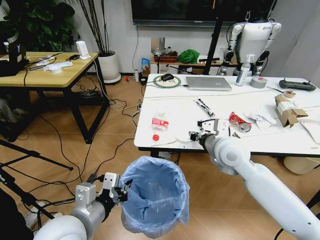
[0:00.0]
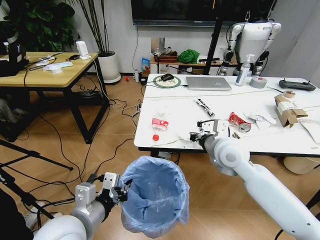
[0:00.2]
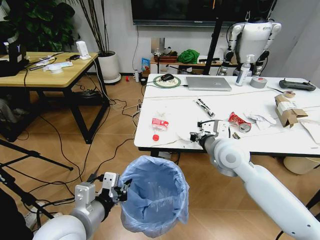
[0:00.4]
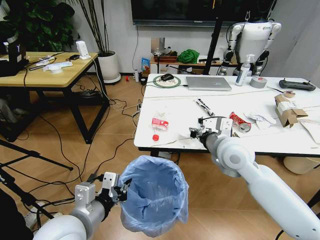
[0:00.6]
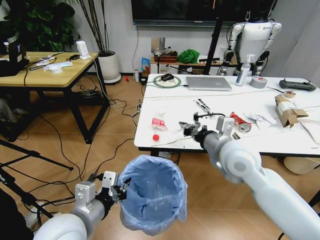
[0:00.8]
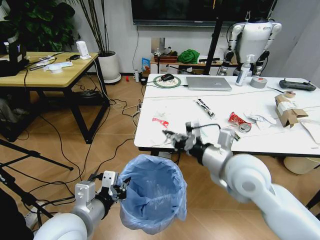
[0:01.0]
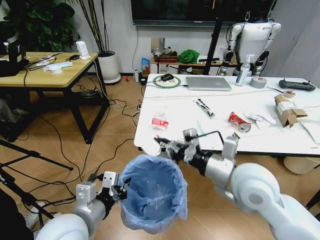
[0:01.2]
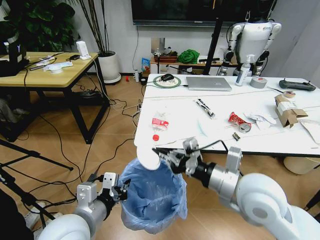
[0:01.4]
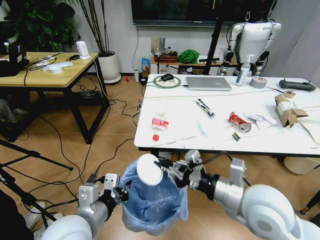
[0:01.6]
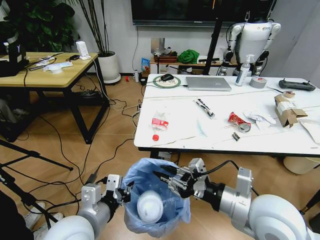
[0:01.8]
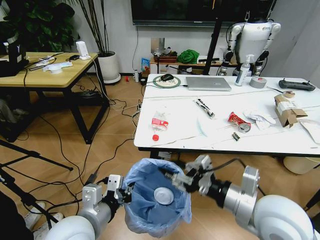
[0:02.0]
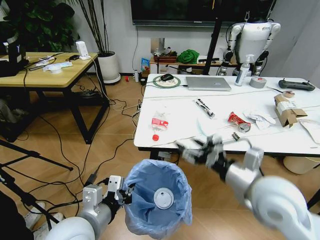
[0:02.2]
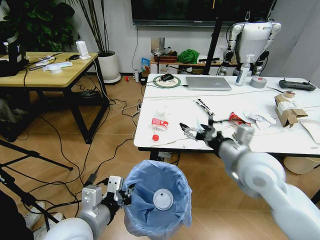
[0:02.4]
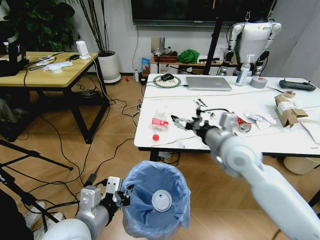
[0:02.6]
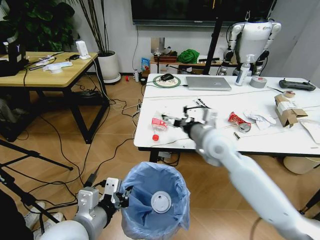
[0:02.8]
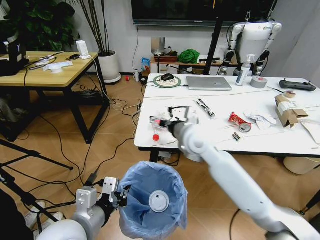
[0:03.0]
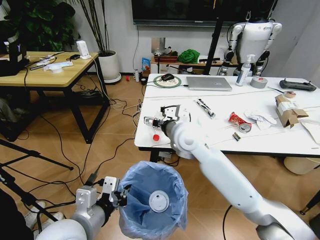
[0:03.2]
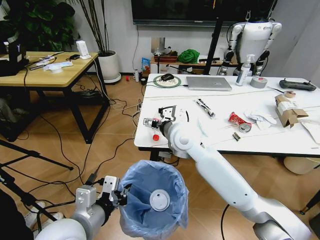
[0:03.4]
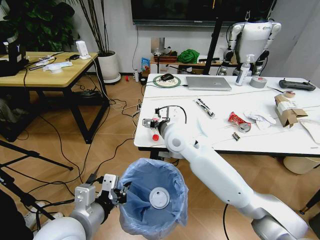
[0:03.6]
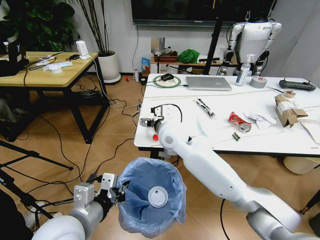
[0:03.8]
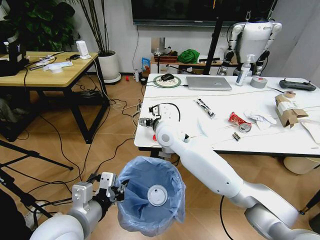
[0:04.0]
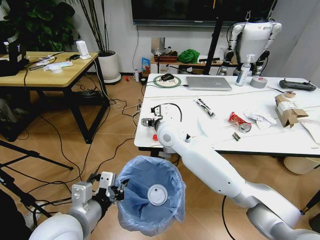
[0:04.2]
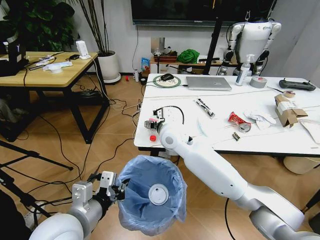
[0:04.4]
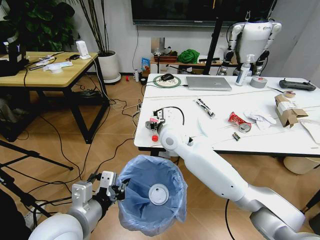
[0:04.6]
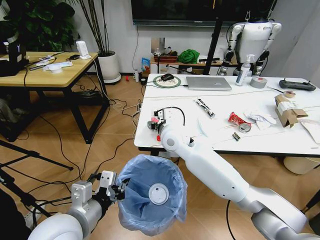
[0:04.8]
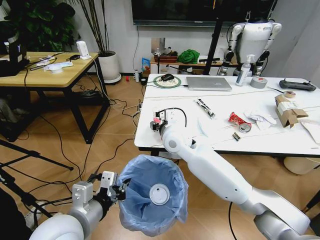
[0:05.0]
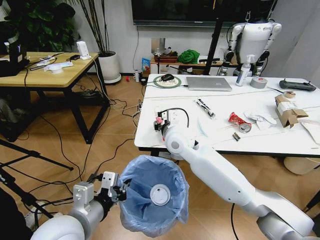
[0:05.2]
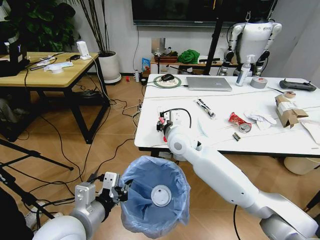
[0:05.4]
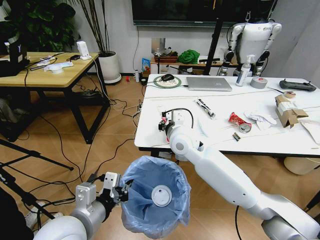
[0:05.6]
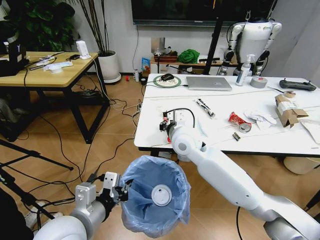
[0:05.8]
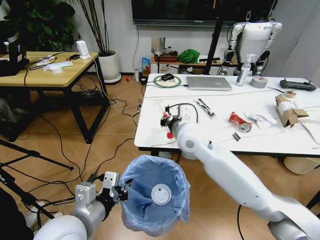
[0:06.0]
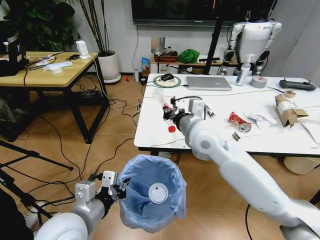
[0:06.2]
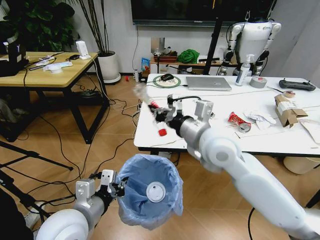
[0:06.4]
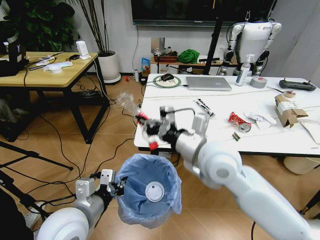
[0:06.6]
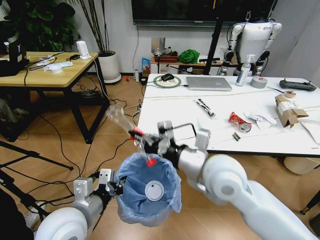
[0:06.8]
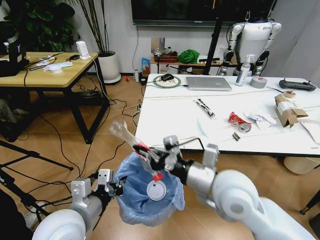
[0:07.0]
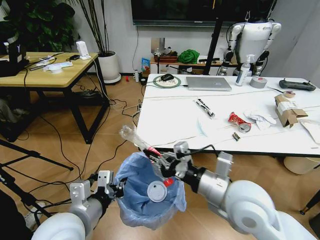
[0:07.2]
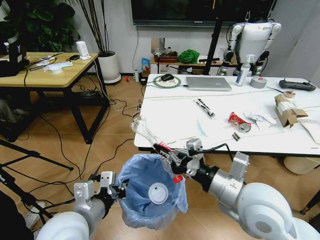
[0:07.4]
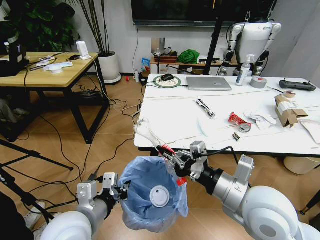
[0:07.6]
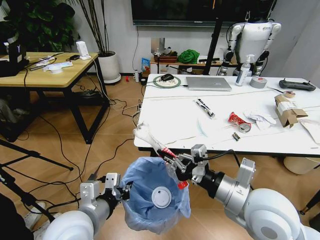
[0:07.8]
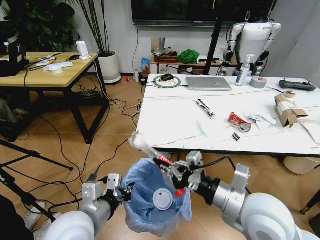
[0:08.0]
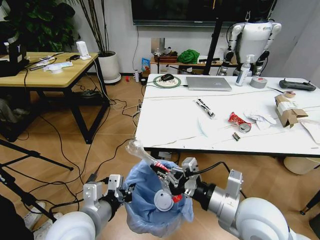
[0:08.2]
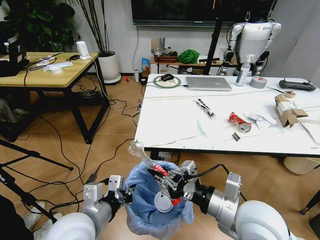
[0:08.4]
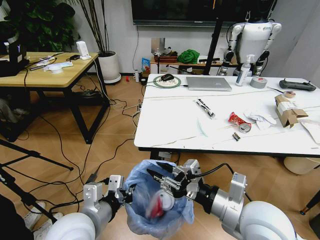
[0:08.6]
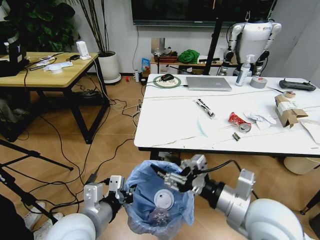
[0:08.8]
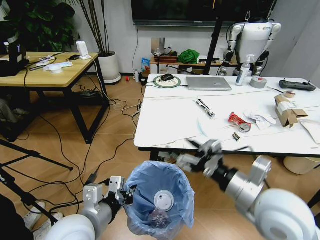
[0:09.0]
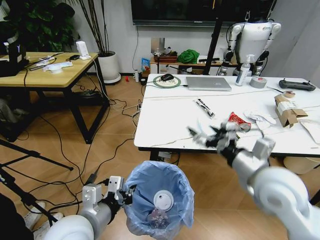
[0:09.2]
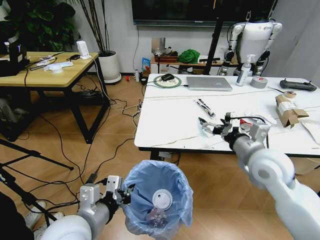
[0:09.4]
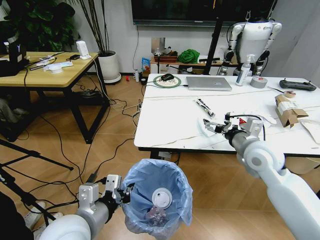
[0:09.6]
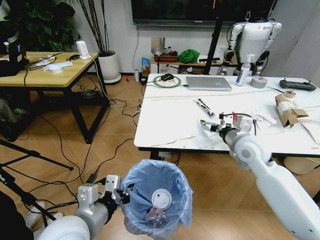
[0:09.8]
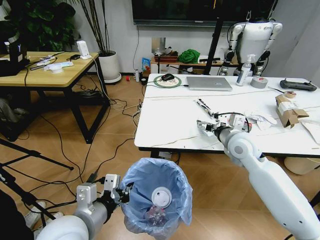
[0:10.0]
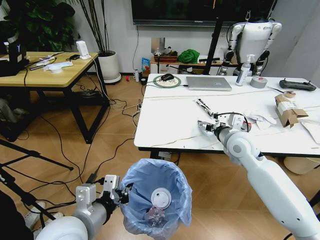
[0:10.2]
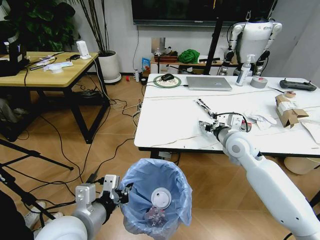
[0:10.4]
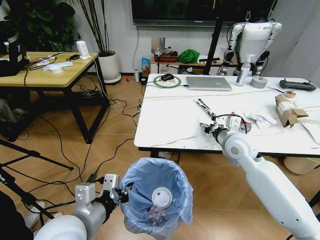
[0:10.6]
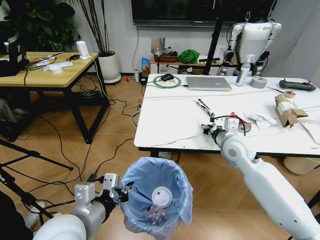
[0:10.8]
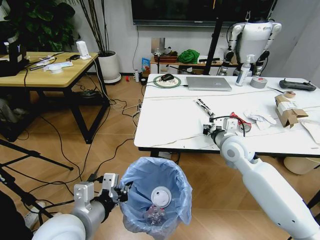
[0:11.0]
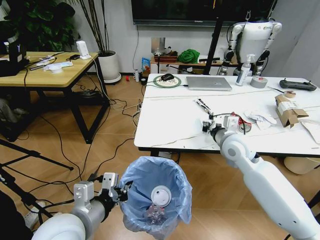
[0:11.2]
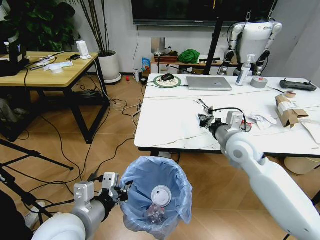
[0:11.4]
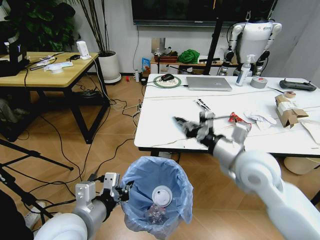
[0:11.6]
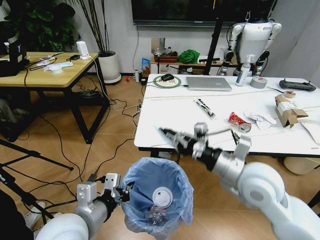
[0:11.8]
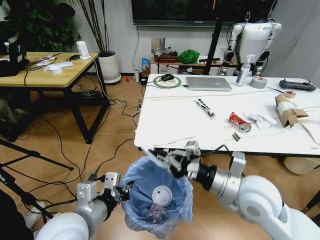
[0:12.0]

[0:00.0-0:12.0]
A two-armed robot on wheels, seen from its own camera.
Task of the whole recording: Pick up the trash bin and place the trash from the table into it.
0:00.0 to 0:01.6: The right gripper goes roughly 15 cm backward.
0:01.6 to 0:03.0: The right gripper is displaced forward and to the left by roughly 20 cm, and opens its fingers.
0:03.0 to 0:04.4: The right gripper is displaced to the left by about 5 cm.
0:04.4 to 0:06.0: The right gripper moves roughly 5 cm, and closes up.
0:06.0 to 0:07.6: The right gripper travels backward and to the right by about 25 cm.
0:07.6 to 0:09.0: The right gripper opens its fingers.
0:09.0 to 0:10.4: The right gripper moves forward, roughly 20 cm.
0:10.4 to 0:12.0: The right gripper goes roughly 15 cm backward, and closes its fingers.

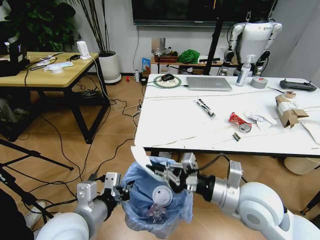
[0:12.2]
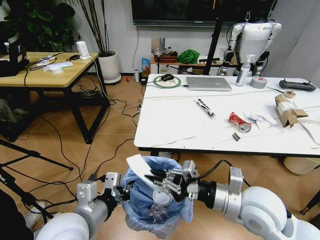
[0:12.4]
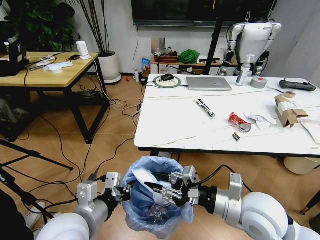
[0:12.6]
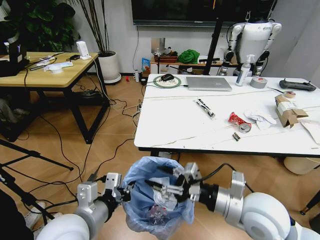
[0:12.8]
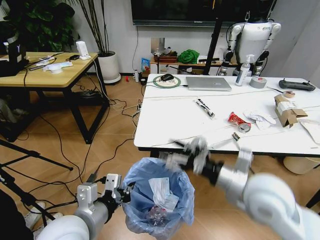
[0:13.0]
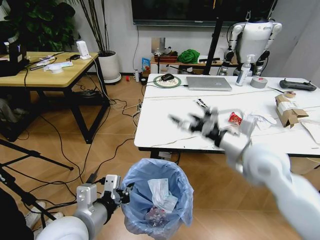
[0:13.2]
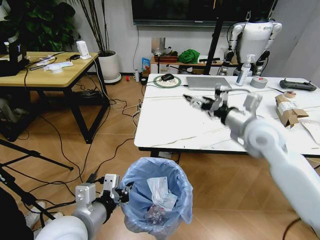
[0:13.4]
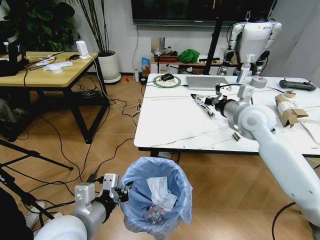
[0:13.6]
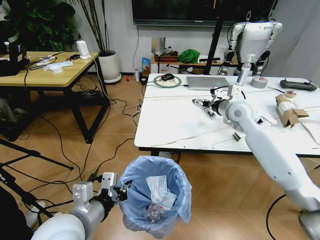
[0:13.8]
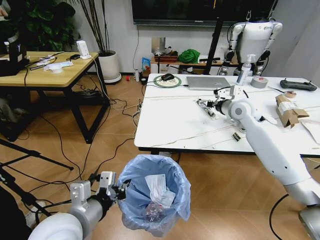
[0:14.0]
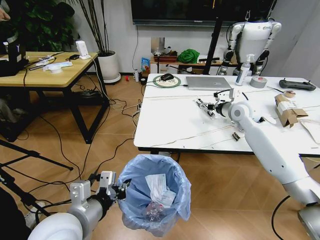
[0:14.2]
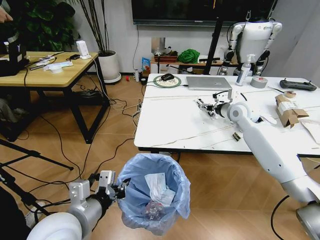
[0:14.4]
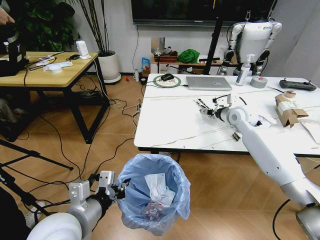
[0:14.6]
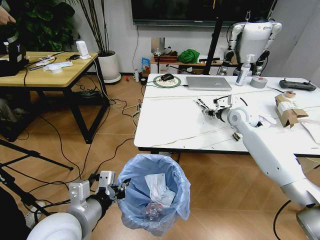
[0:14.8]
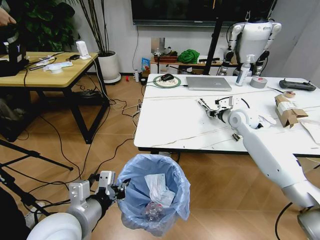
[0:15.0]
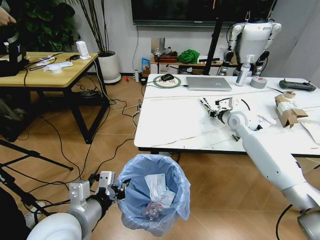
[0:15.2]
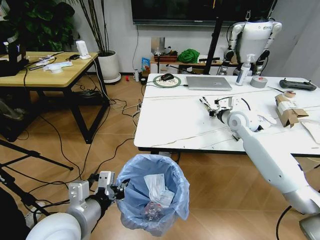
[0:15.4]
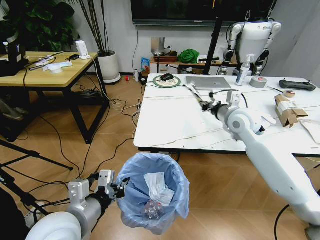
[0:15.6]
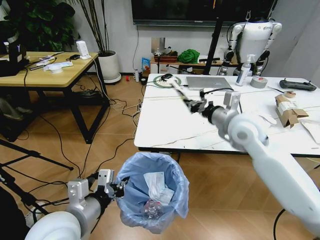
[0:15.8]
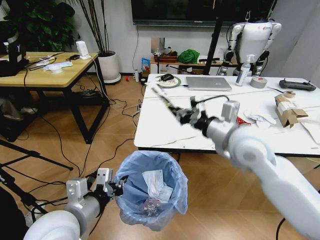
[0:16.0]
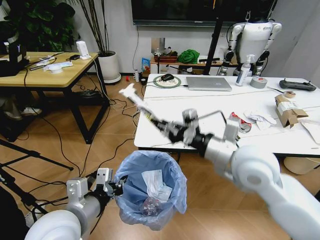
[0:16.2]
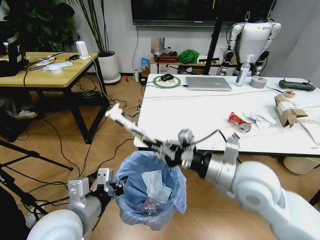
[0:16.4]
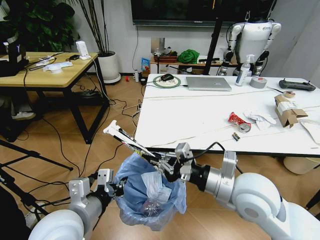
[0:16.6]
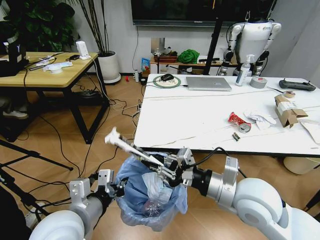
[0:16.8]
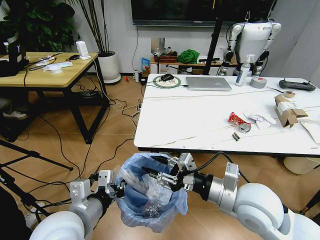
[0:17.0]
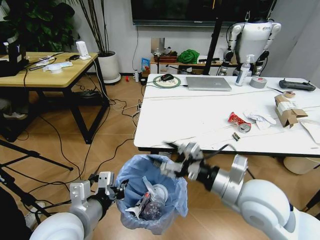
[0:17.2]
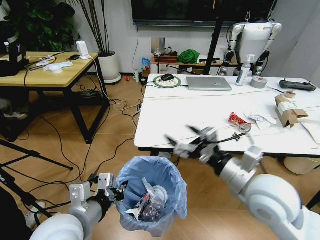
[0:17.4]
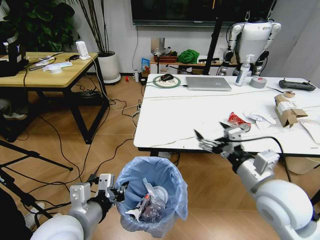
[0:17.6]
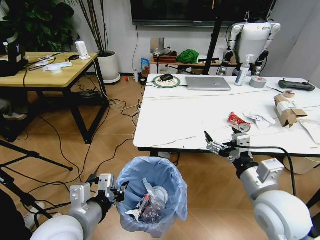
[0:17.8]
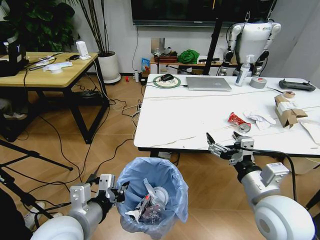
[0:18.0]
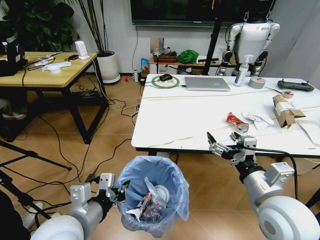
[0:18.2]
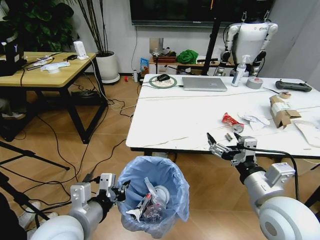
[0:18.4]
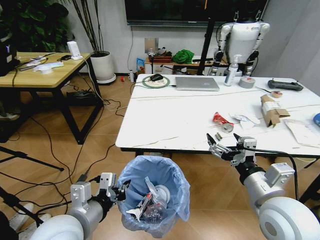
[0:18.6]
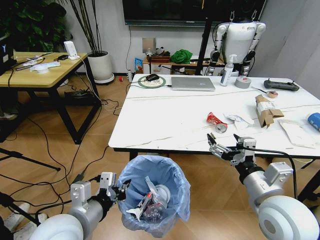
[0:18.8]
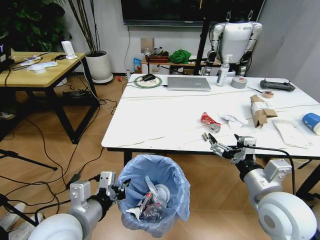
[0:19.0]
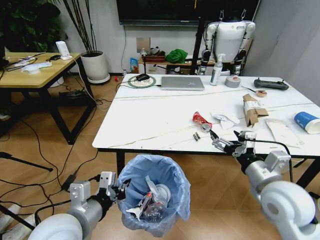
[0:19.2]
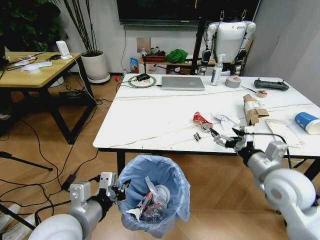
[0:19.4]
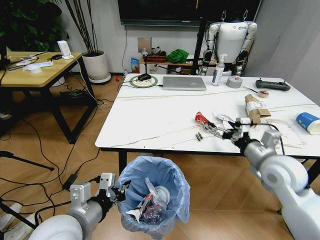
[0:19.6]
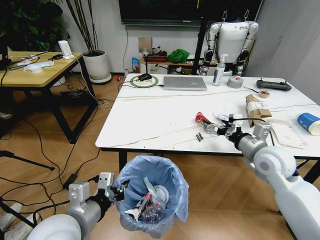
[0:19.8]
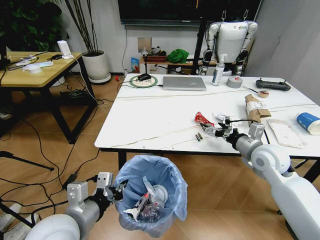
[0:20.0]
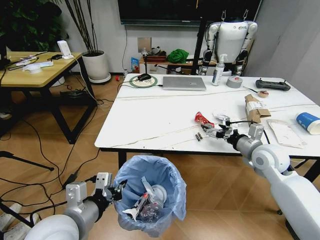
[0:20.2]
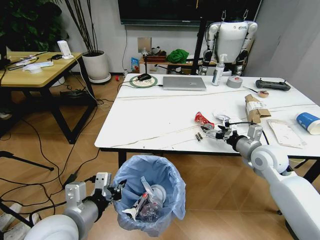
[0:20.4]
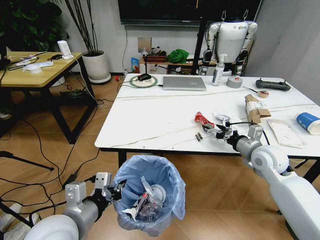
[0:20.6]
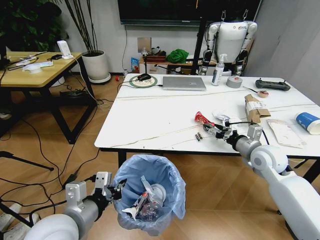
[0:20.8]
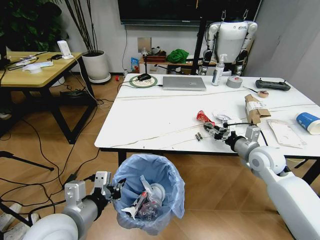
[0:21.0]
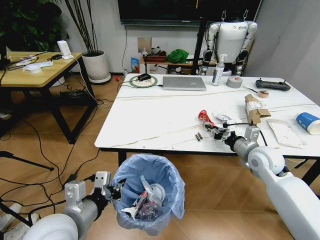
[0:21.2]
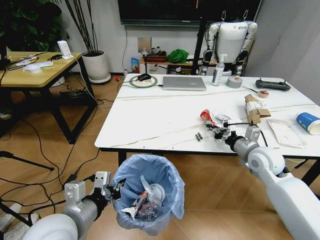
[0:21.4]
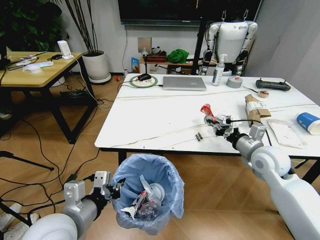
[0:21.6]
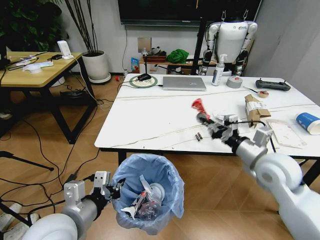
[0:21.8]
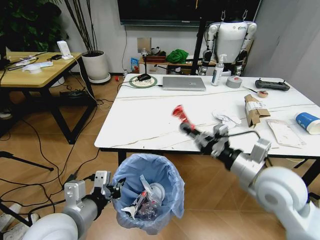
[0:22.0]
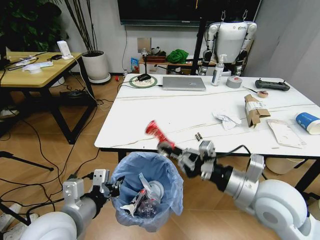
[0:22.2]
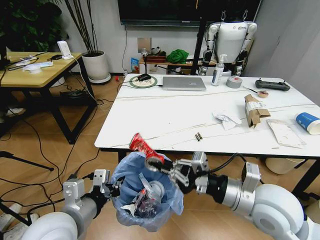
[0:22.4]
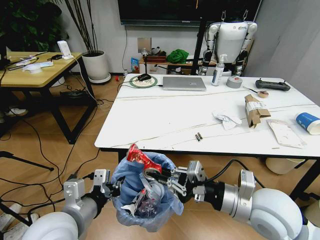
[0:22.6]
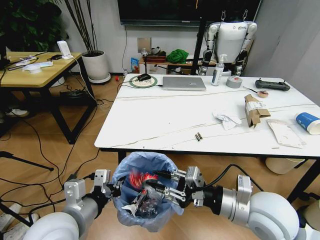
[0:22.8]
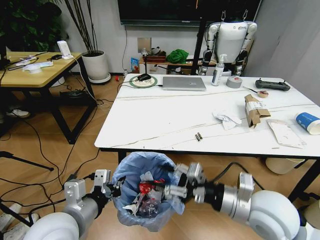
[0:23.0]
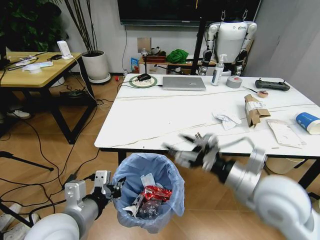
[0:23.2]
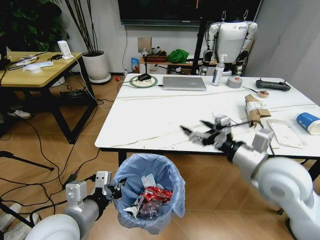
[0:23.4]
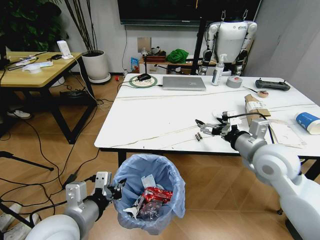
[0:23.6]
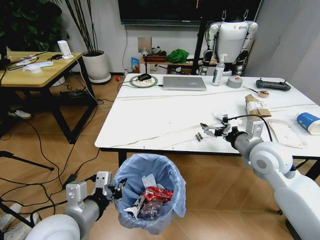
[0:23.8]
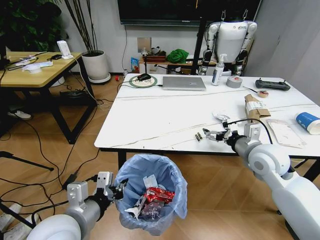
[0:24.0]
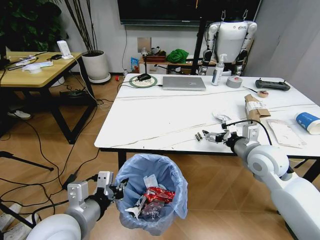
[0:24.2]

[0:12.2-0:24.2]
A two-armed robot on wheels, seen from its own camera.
Task of the whole recording: Pick up the trash bin and place the trash from the table into it.
0:12.2 to 0:13.8: The right gripper moves forward, some 25 cm, and opens its fingers.
0:13.8 to 0:15.2: The right gripper goes roughly 5 cm downward, and closes up.
0:15.2 to 0:16.6: The right gripper is displaced backward by about 30 cm.
0:16.6 to 0:18.2: The right gripper goes roughly 5 cm to the right, and opens.
0:18.2 to 0:19.8: The right gripper shifts about 15 cm forward and to the right.
0:19.8 to 0:21.2: The right gripper ends up about 5 cm from where it was, and closes its fingers.
0:21.2 to 0:22.6: The right gripper moves backward and to the left, roughly 20 cm.
0:22.6 to 0:24.2: The right gripper travels forward and to the right by approximately 15 cm, and opens.
